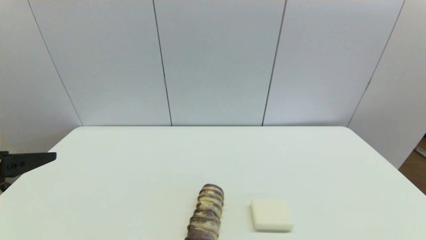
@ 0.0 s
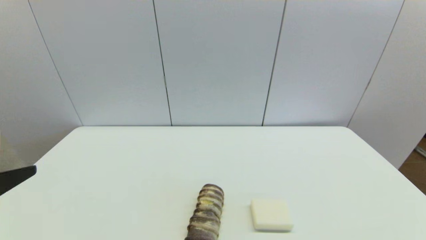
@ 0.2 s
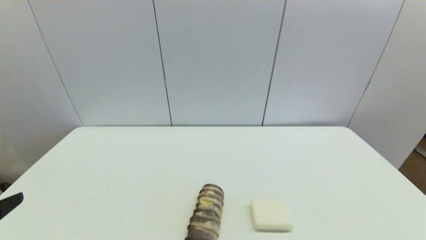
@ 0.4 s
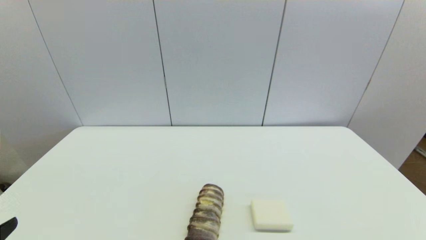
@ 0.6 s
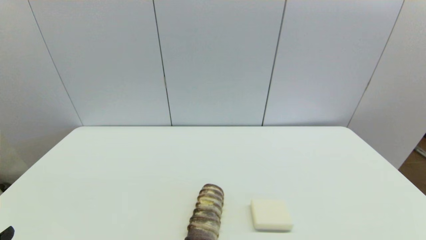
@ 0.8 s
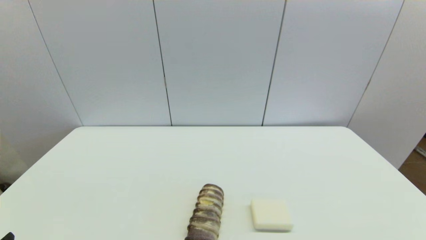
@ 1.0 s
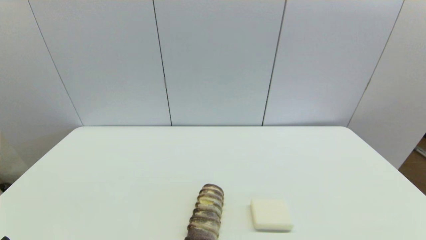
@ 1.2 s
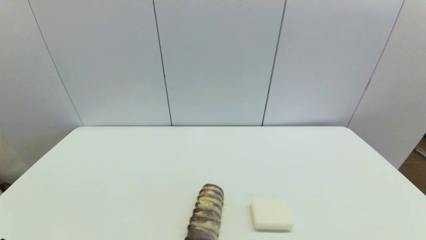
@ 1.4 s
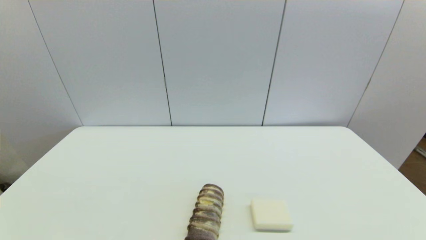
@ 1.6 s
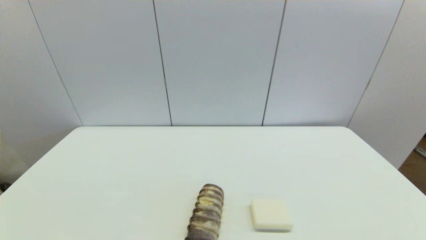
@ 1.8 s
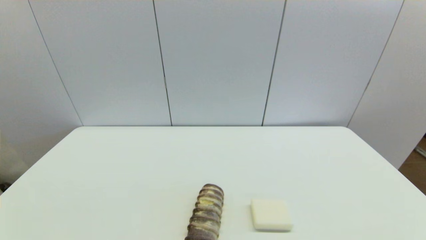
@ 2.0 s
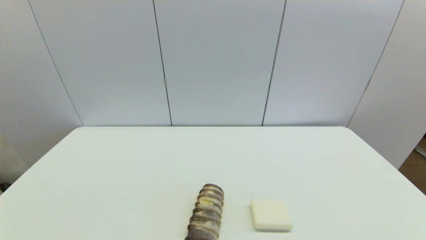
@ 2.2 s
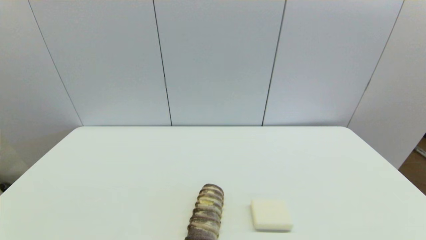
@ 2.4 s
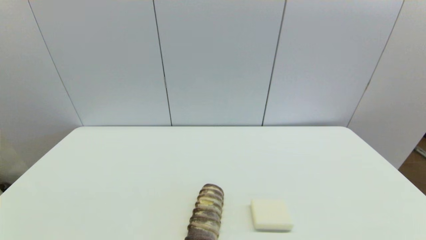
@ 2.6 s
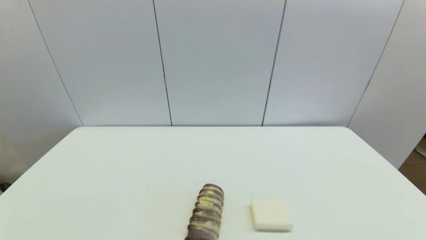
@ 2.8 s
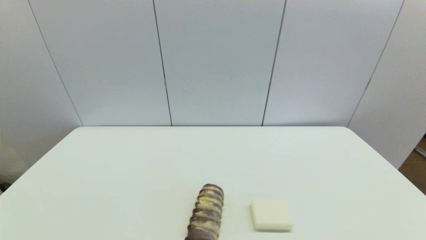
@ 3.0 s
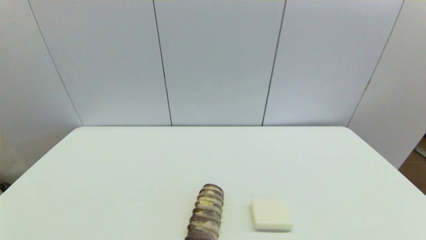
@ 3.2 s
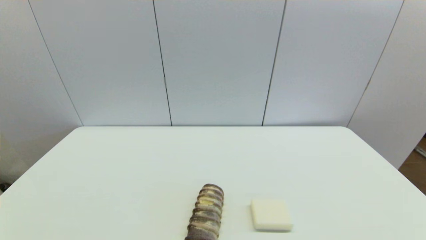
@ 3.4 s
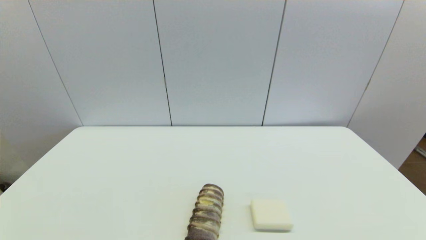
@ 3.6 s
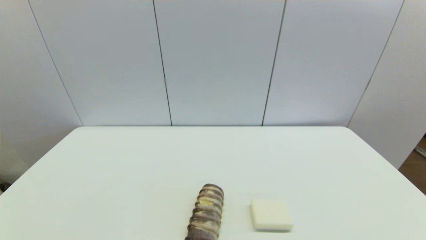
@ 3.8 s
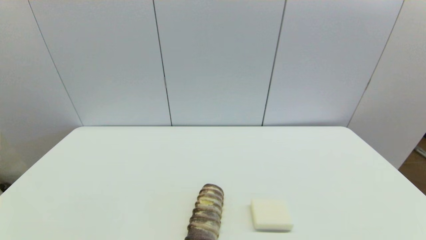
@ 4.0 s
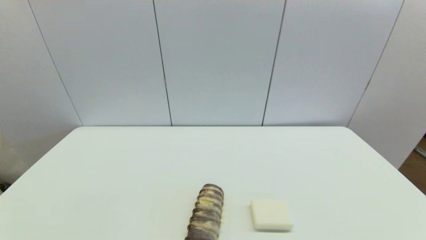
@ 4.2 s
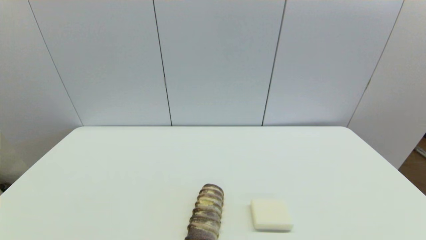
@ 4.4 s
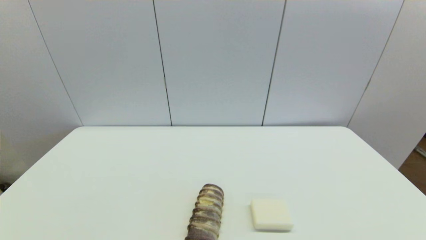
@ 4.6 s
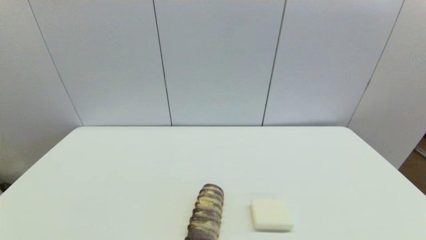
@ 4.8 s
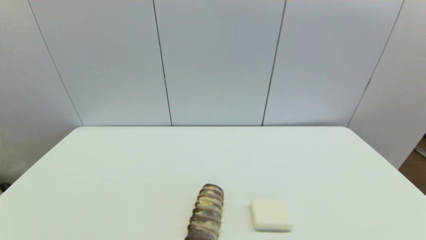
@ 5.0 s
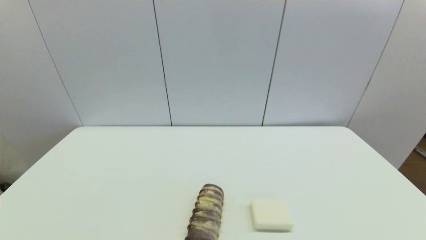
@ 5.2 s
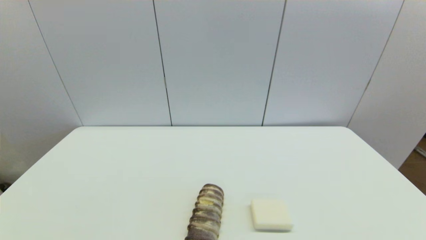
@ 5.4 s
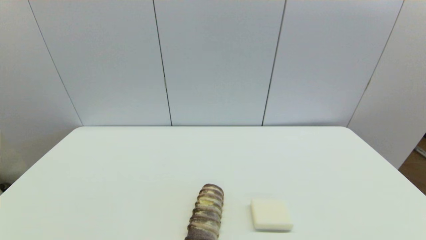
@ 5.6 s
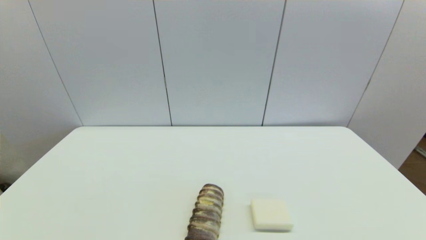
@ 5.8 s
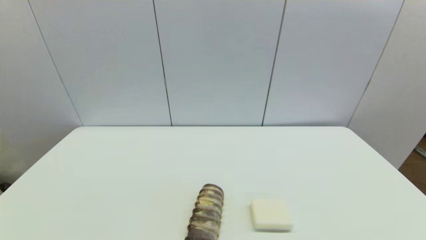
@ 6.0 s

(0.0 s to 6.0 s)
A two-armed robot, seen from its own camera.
0.0 s - 1.6 s: The left gripper shifts roughly 20 cm downward and backward.
4.4 s - 6.0 s: Both grippers stay about where they are.
